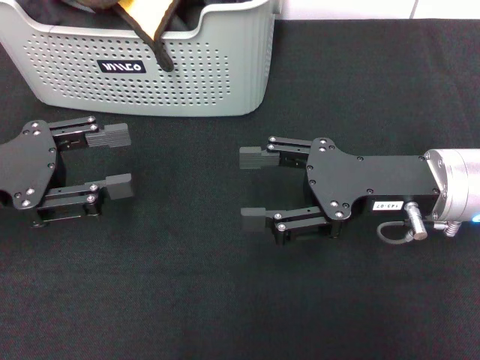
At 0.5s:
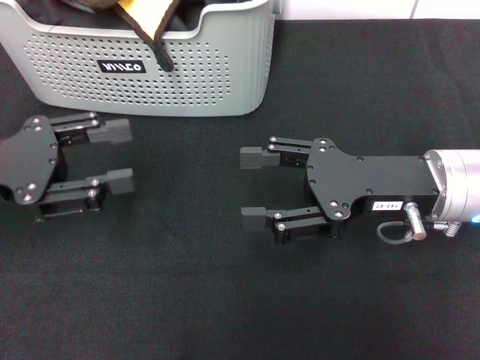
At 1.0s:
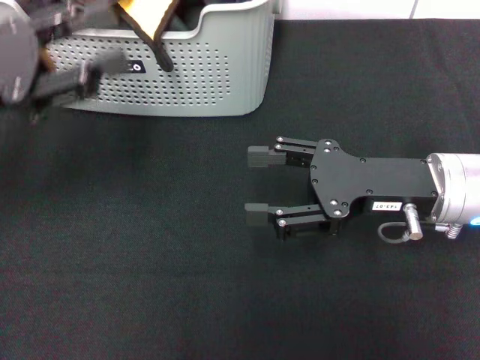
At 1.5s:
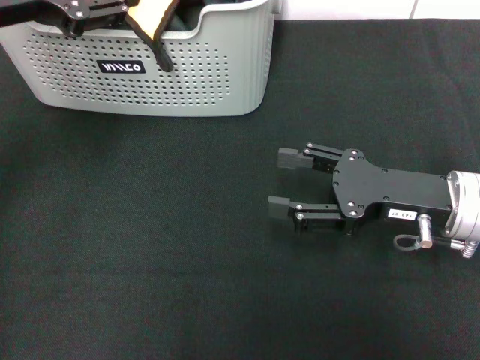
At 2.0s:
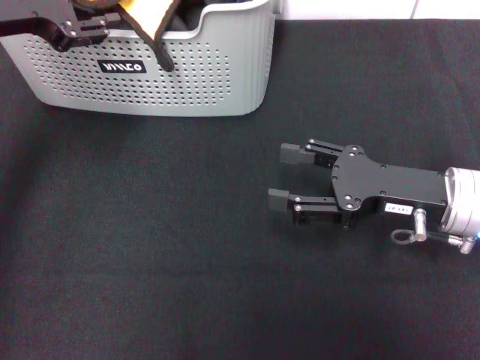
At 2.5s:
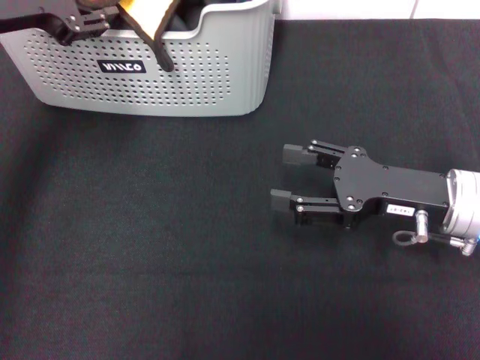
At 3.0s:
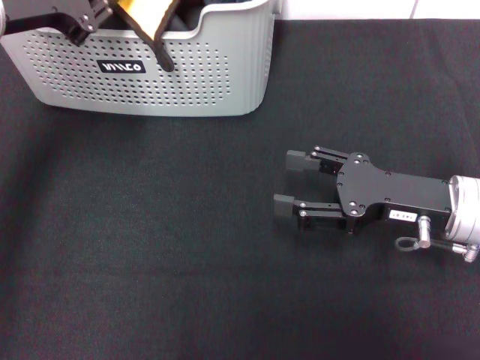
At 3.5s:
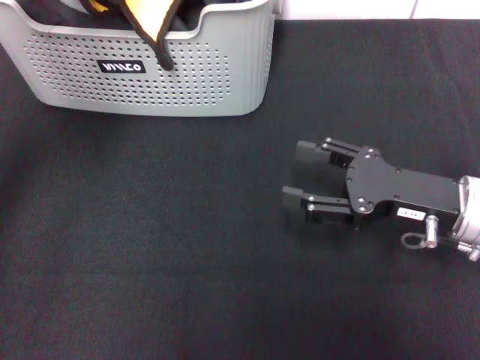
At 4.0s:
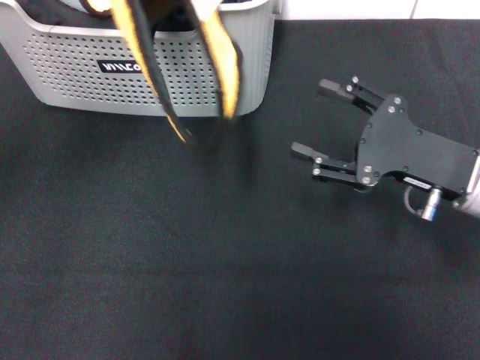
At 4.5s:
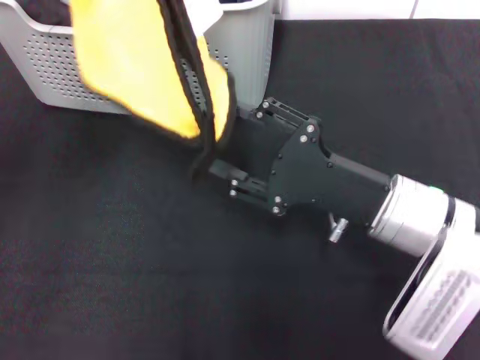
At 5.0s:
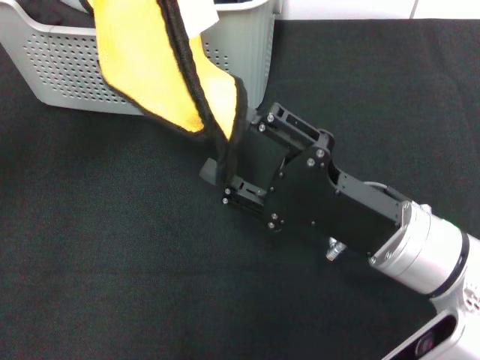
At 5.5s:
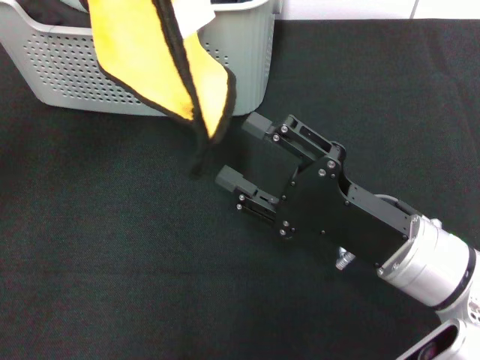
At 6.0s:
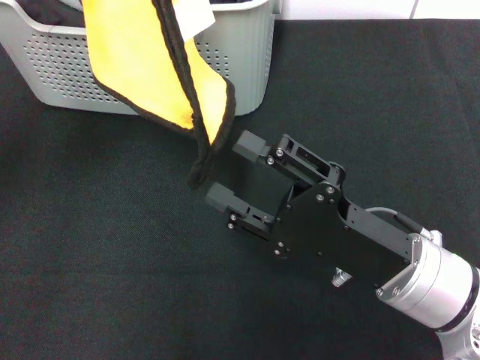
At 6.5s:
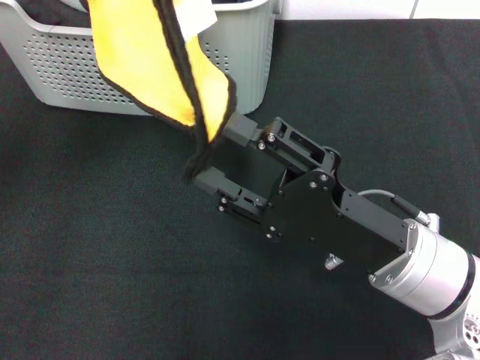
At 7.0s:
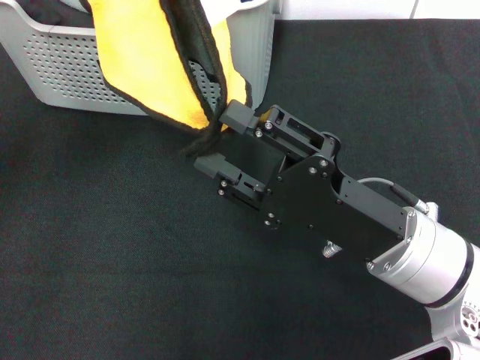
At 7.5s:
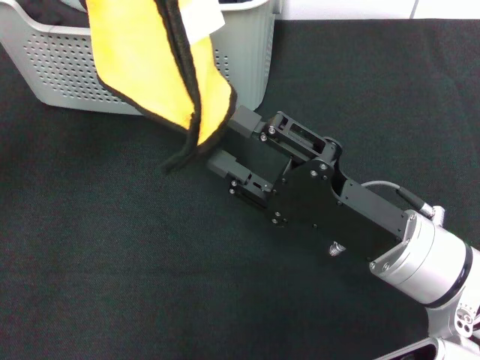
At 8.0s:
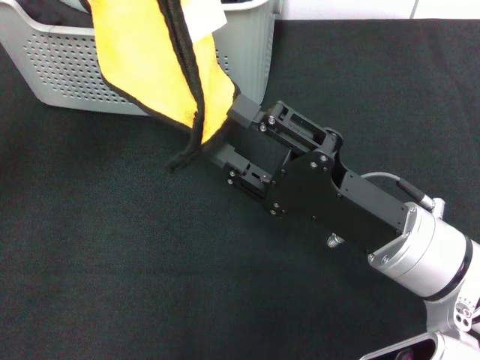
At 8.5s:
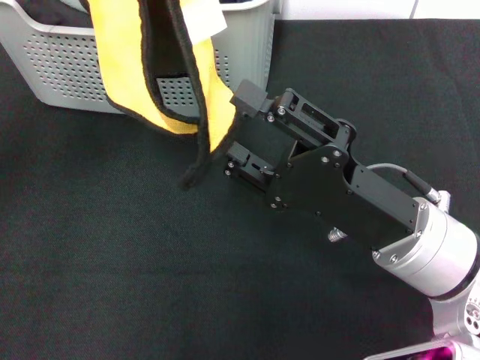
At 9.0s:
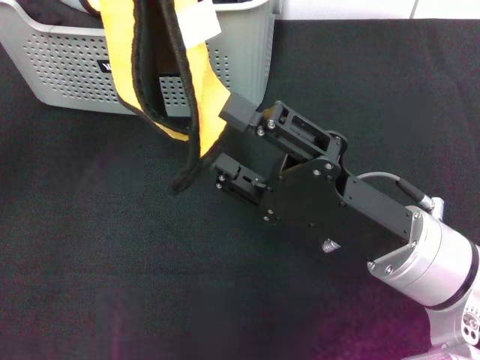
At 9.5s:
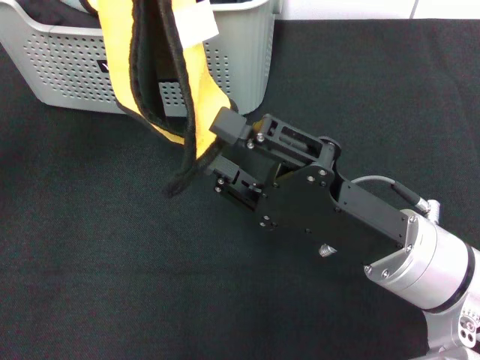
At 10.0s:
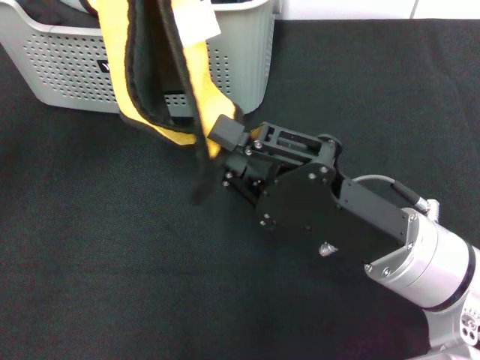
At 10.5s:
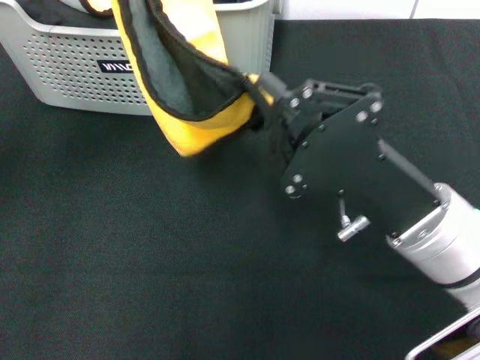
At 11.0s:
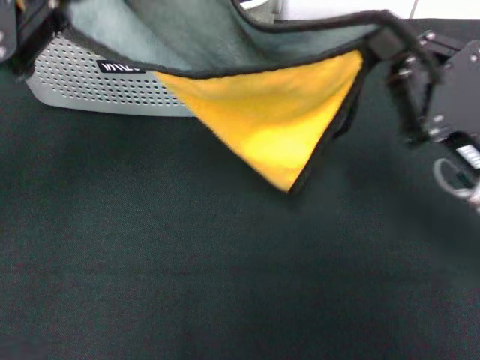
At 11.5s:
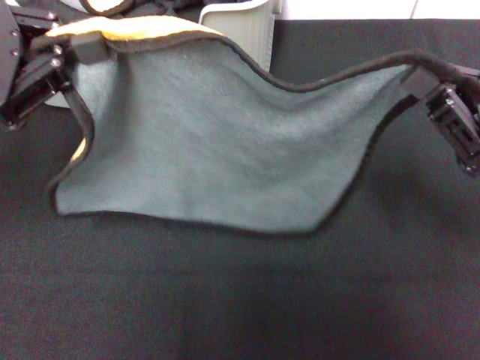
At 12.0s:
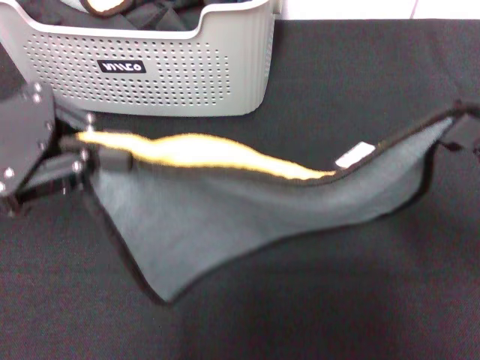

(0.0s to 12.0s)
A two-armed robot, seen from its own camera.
Task of the whole recording: pick up the towel from the storage box and lay it flat on the black tablecloth.
Step, 0.0s - 3.0s: Pick up a towel with the left gripper.
Step, 3.5s - 10.0s: Spread the towel flat with the left gripper.
0.0s - 2.0s: The left gripper moves upward, forward and to the right, approximately 15 cm.
2.0s - 4.0s: The left gripper heads backward and upward, covering about 10 cm, and closes.
4.0s - 6.0s: The right gripper moves backward and to the left, about 10 cm.
6.0s - 8.0s: There are only small adjustments of the grippers.
8.0s - 10.0s: The right gripper closes.
10.0s - 12.0s: The right gripper is displaced to the right by roughly 15 cm; the left gripper heads downward, covering approximately 5 cm.

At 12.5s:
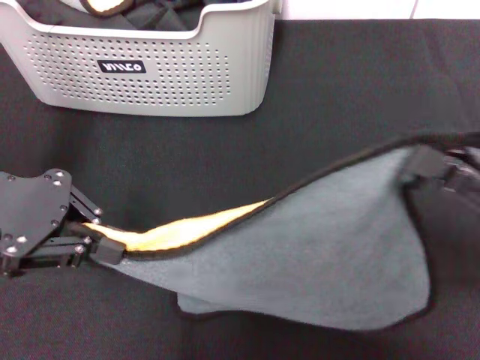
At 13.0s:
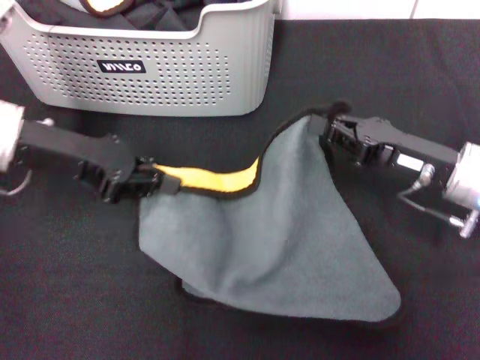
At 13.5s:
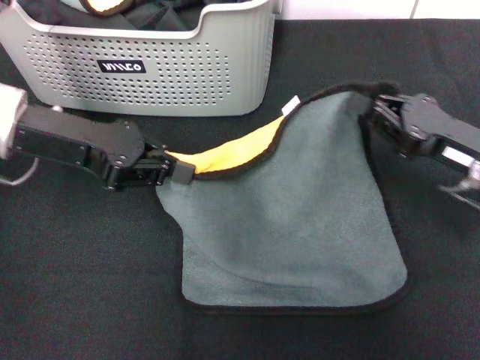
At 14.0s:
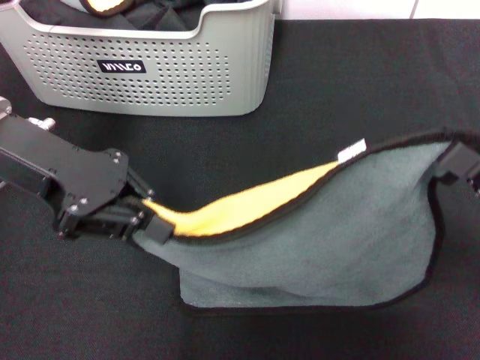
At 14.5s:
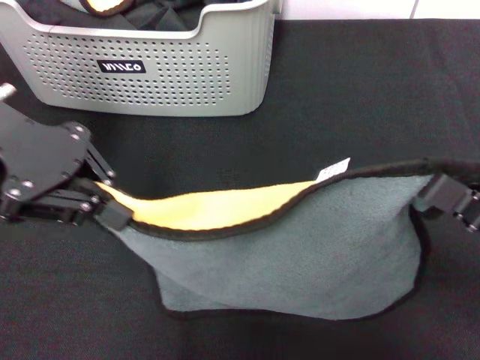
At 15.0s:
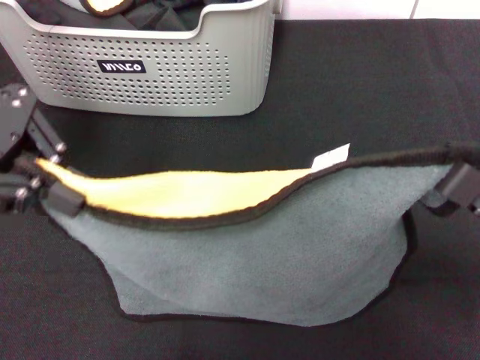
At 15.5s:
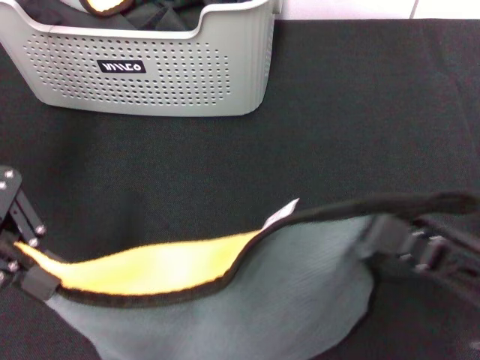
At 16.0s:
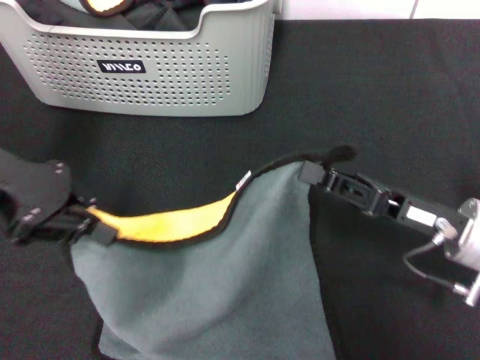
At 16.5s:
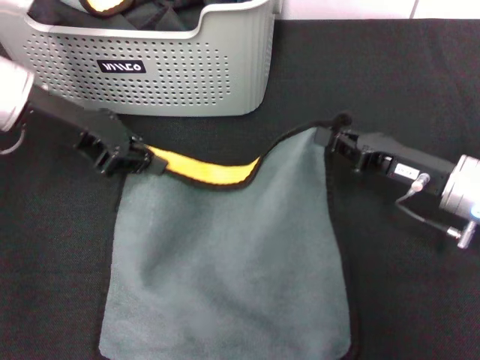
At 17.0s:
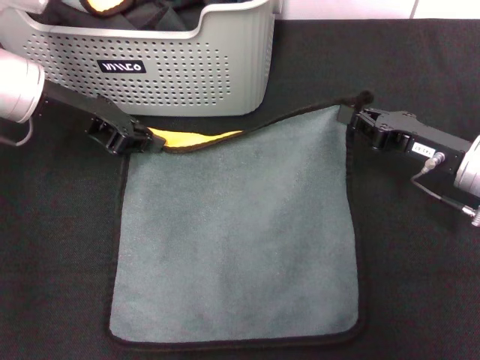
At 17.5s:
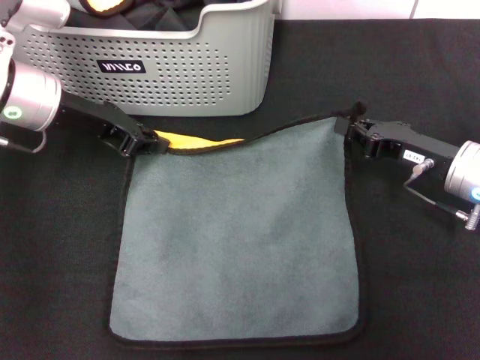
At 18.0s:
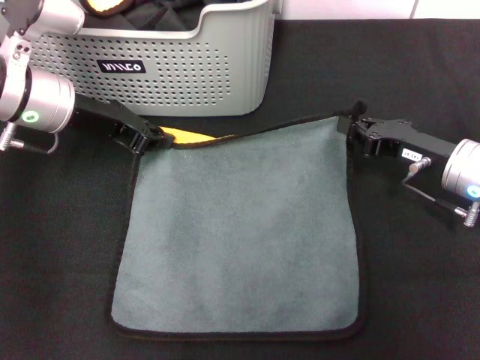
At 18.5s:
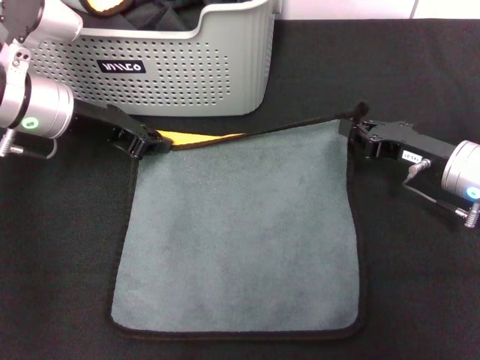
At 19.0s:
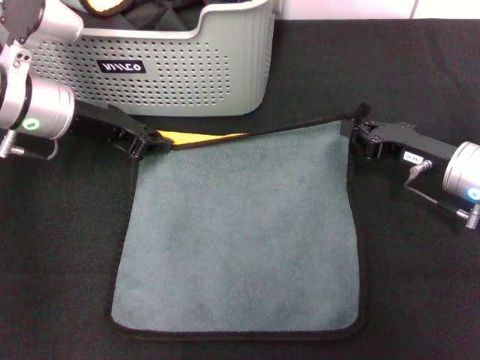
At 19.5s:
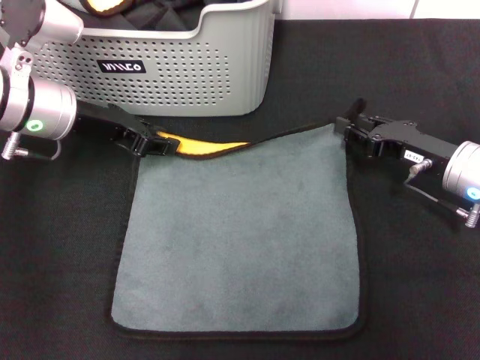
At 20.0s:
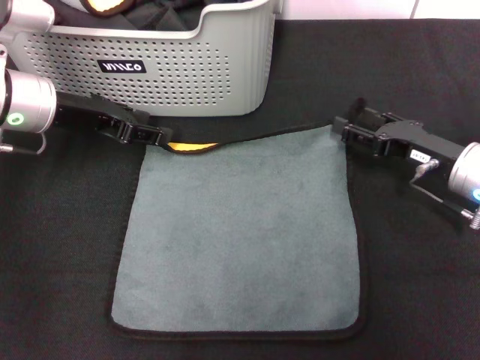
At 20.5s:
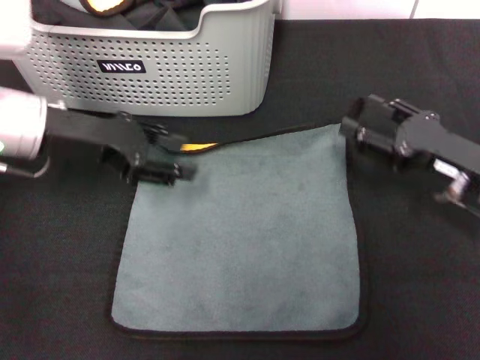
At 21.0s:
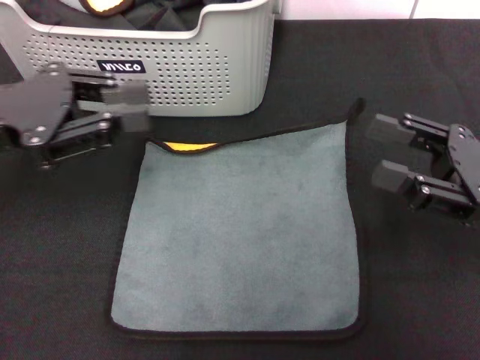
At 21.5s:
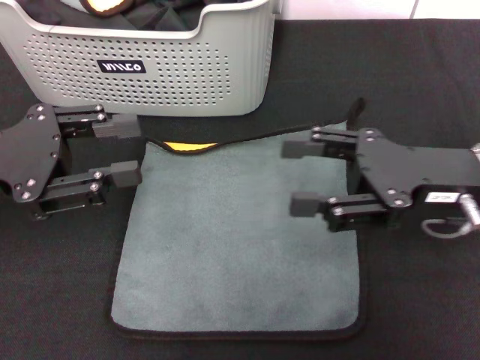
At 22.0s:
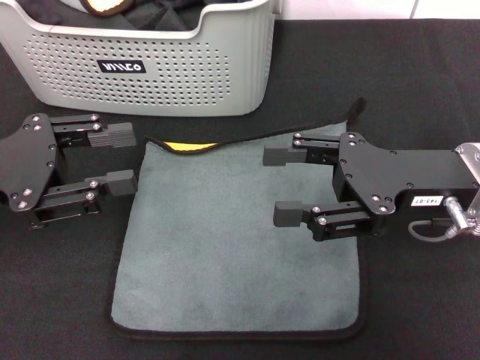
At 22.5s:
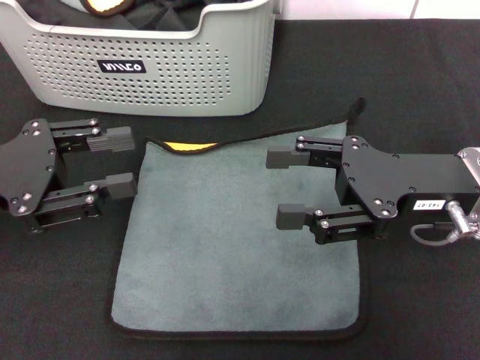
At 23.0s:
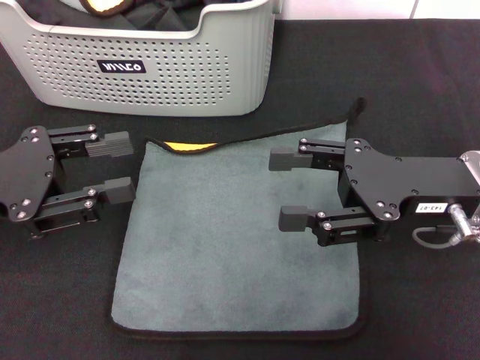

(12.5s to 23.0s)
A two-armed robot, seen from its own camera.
Task of the whole recording: pick up the towel from the storage box and lay it flat on the black tablecloth.
Step, 12.5s - 19.5s: Spread the towel flat with the right gripper.
12.5s - 14.5s: The right gripper travels forward and back again, approximately 5 cm each way; the left gripper moves approximately 5 cm.
14.5s - 16.5s: The right gripper goes about 10 cm forward. Meanwhile the left gripper moves downward, some 5 cm.
16.5s - 19.0s: The left gripper heads downward, covering approximately 5 cm.
19.0s - 21.0s: The right gripper goes approximately 10 cm backward and upward, and opens its fingers, while the left gripper goes some 10 cm backward, upward and to the left, and opens up.
21.0s - 23.0s: The right gripper is displaced to the left by approximately 5 cm, while the left gripper changes place by approximately 5 cm.
